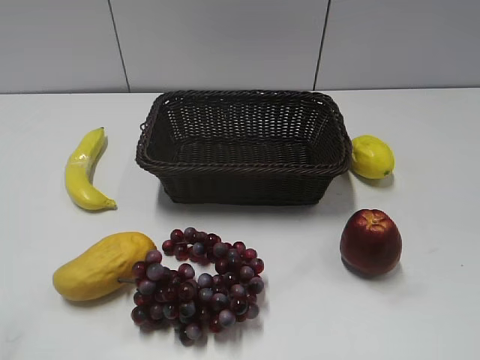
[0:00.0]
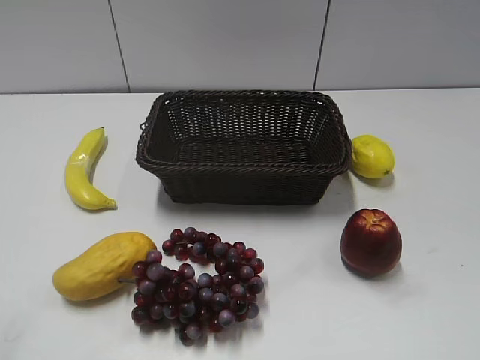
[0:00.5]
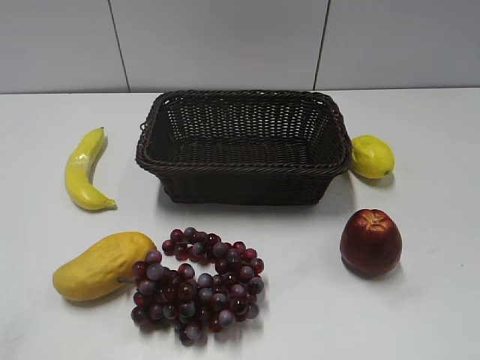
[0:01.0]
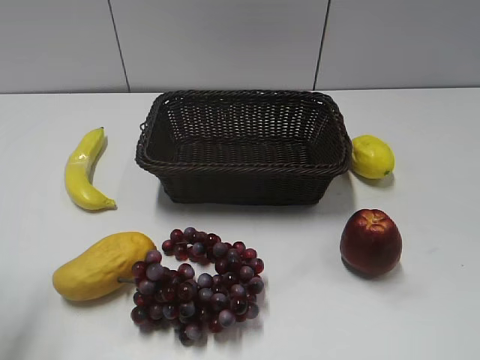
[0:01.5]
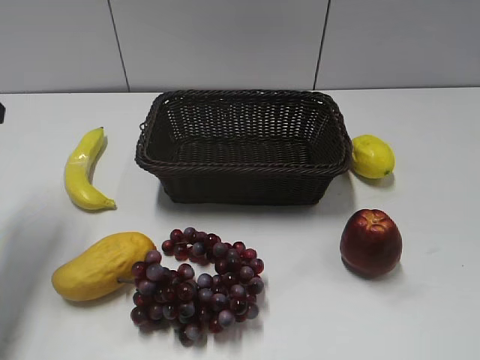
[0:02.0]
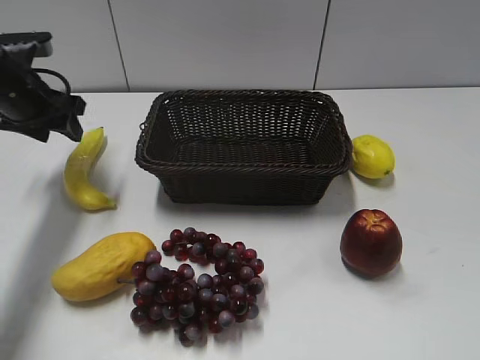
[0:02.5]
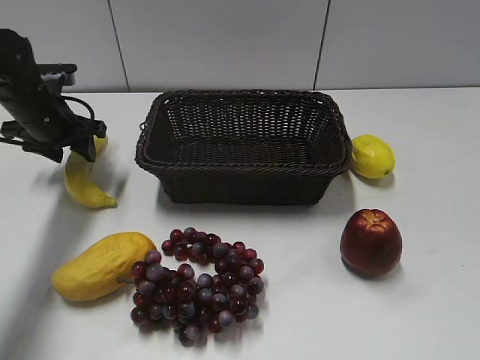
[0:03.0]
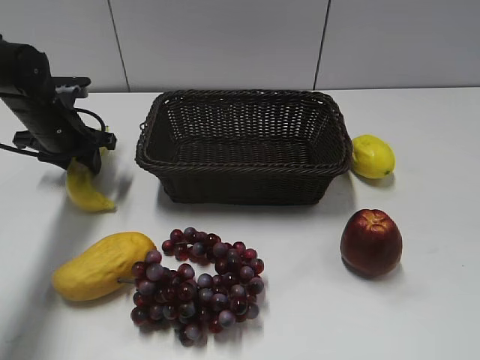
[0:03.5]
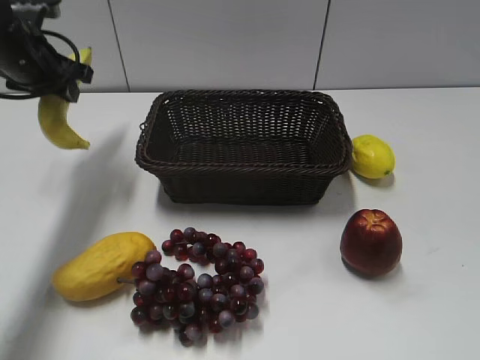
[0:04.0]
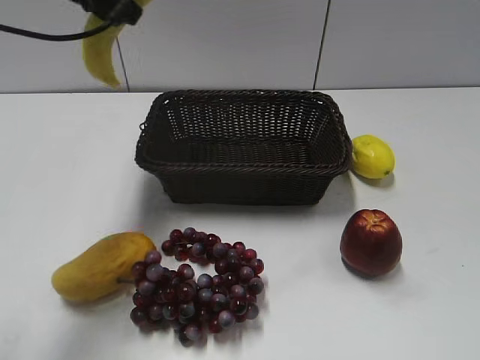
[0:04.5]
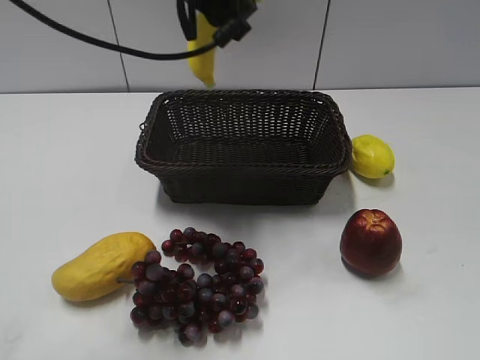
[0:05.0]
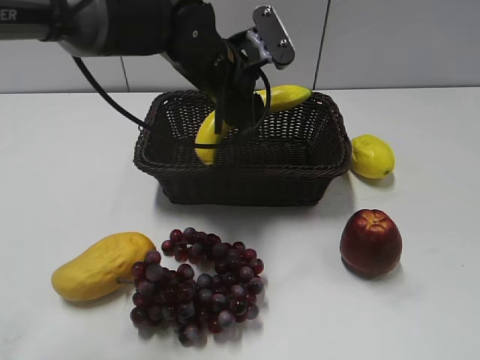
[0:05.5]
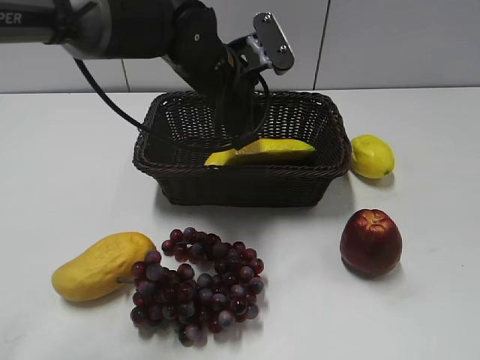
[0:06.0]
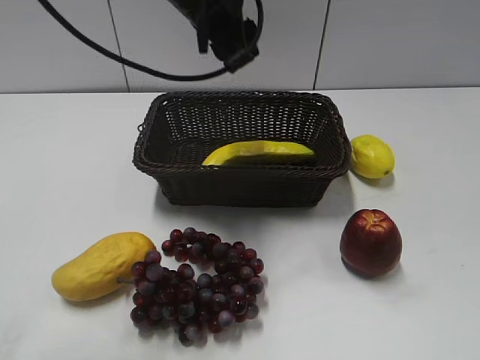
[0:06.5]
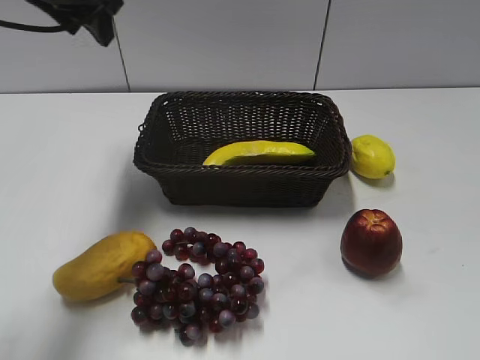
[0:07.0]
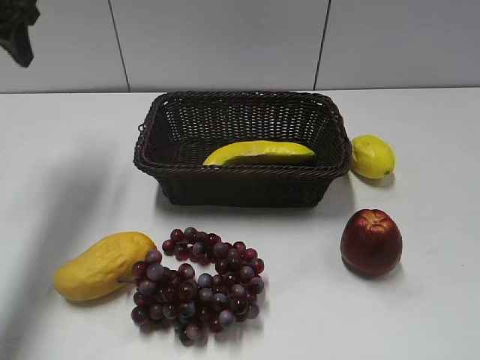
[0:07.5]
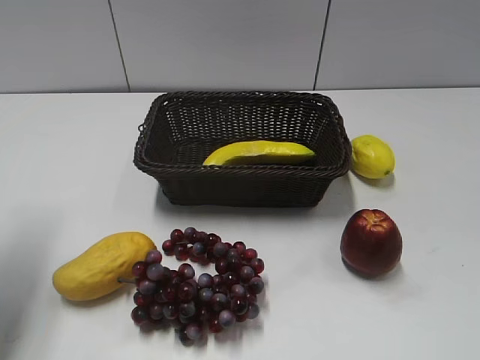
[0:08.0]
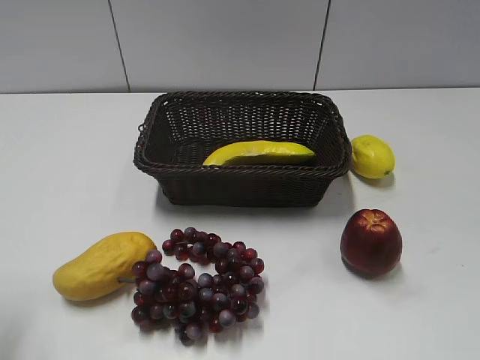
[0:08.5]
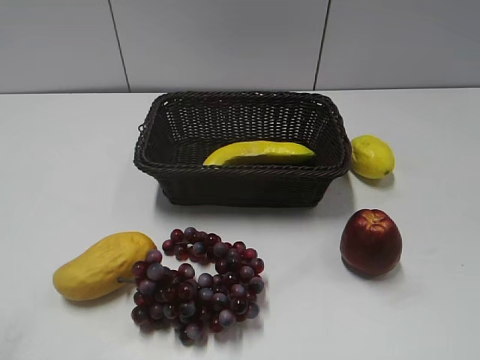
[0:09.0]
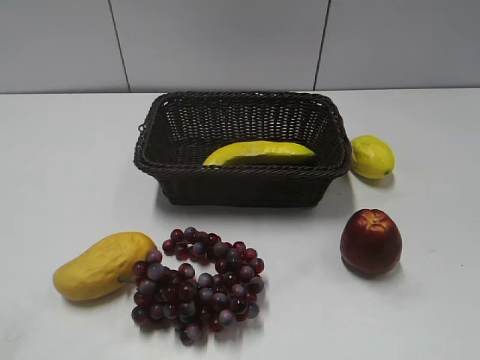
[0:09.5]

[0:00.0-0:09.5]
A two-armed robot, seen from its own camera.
Step, 0:02.0 to 0:03.5: Grasp the banana with left gripper.
Step, 0:04.0 to 0:06.0: Place the banana in the basket with left gripper.
0:02.0 to 0:04.0: The left gripper shifts approximately 10 cm forward and to the right, moves roughly 15 cm downward and comes back, and closes.
0:04.0 to 0:05.5: The left gripper shifts some 25 cm to the right.
0:05.5 to 0:07.5: The left gripper travels to the left and upward by some 30 cm, and opens its fingers.
0:07.5 to 0:09.5: The left gripper shifts some 40 cm backward.

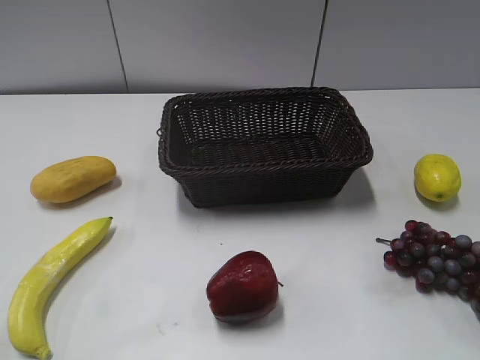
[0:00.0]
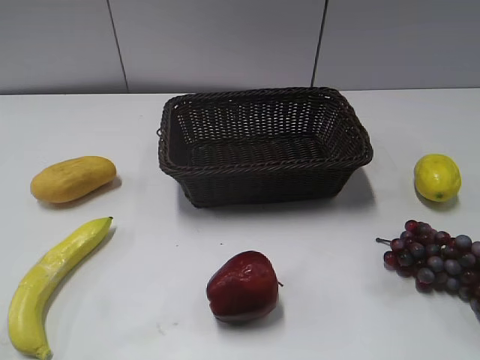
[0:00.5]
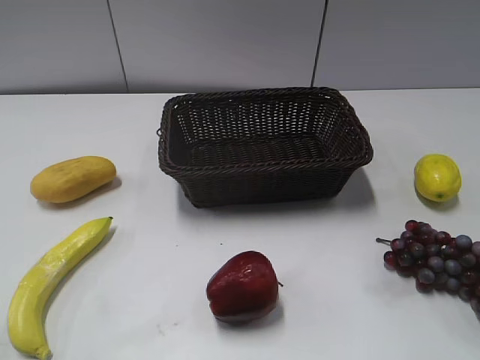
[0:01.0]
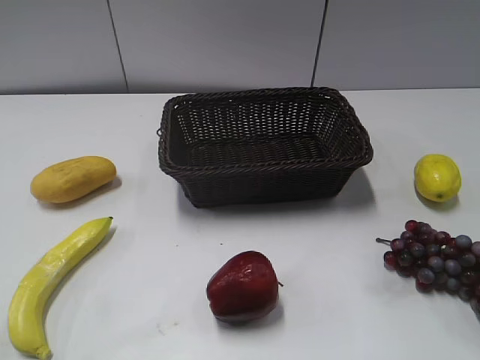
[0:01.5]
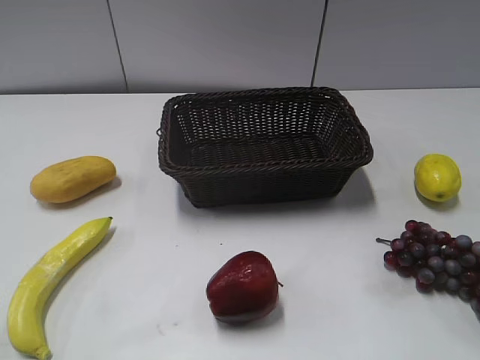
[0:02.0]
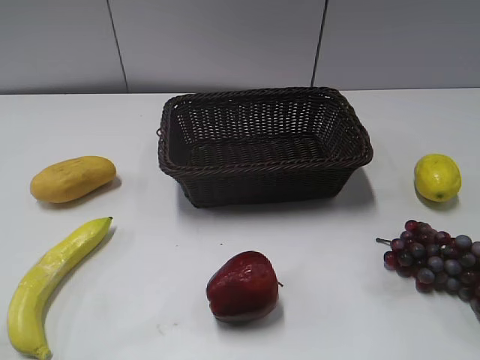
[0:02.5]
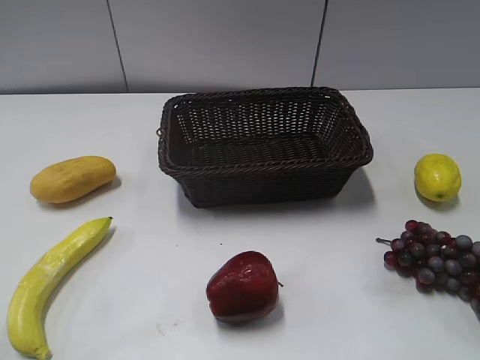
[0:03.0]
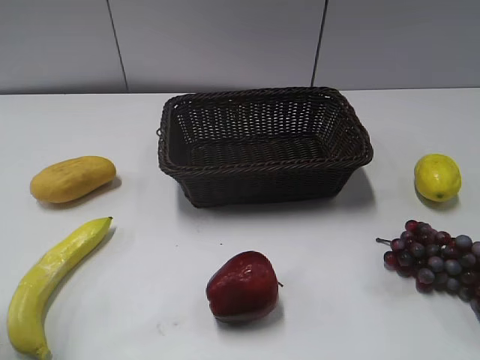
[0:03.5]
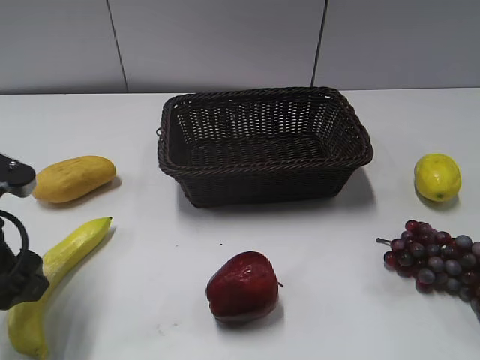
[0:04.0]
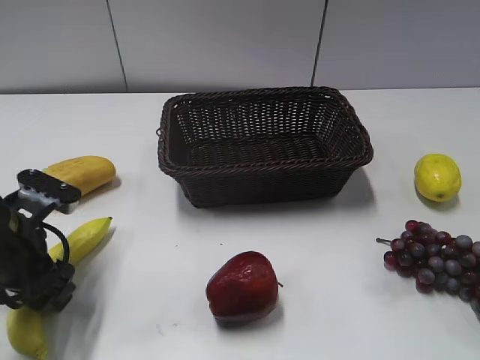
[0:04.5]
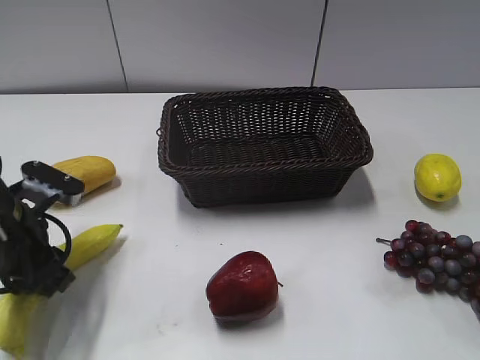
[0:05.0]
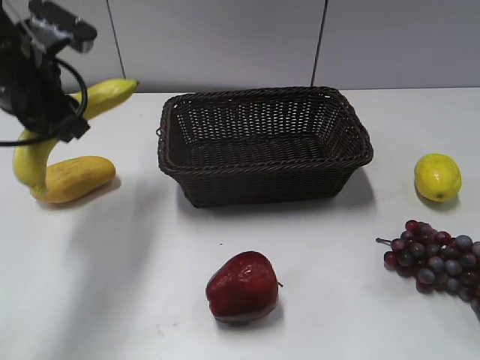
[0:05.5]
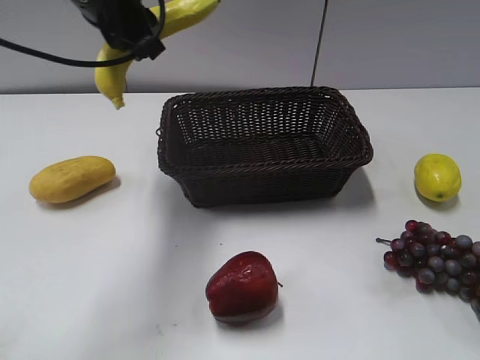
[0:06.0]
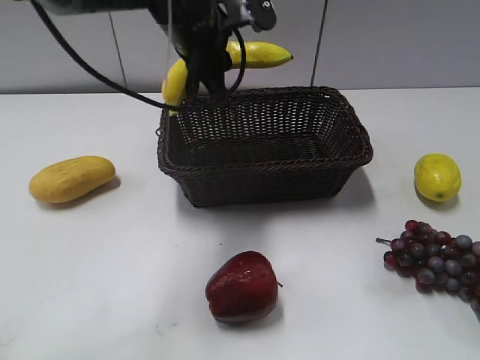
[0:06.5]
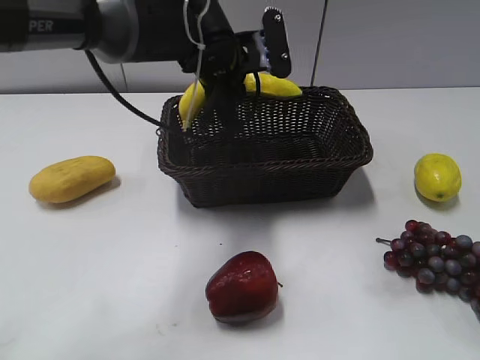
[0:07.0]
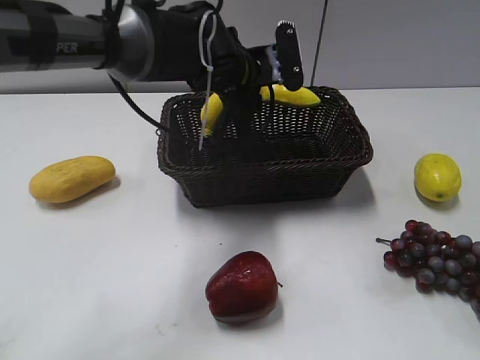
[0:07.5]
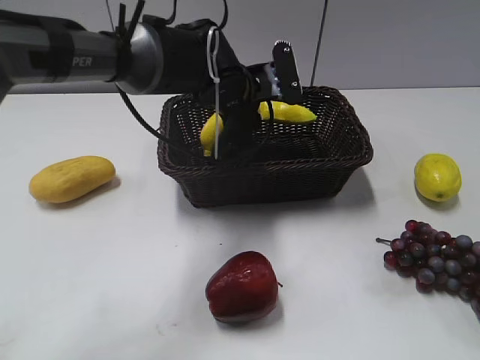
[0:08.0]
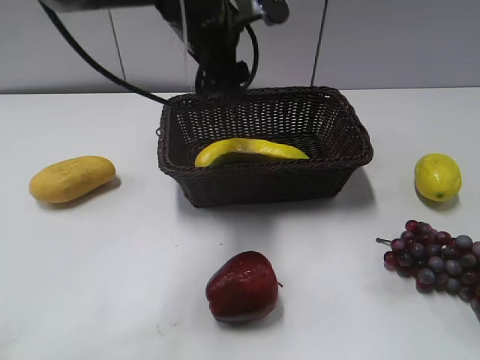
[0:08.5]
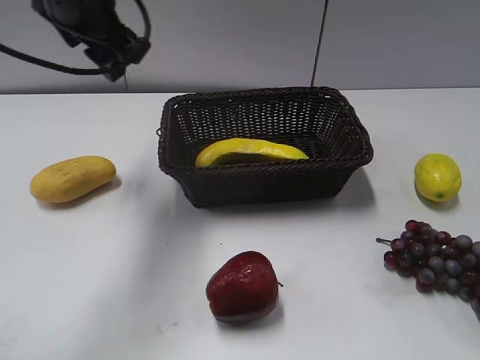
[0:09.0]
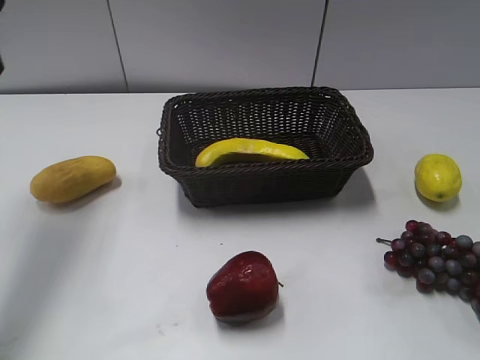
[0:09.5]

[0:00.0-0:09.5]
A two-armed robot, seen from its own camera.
Step, 0:04.0 to 0:05.0: Grasp the banana with left gripper.
Step, 0:05.5 to 0:08.0: Place the banana in the basket with left gripper.
0:02.0 to 0:04.0: The left gripper is displaced forward, downward and to the right by about 25 cm.
0:04.0 to 0:05.5: The left gripper moves forward and upward, roughly 15 cm, and closes its fingers.
0:05.5 to 0:07.5: The left gripper shifts approximately 20 cm to the right and forward.
0:07.5 to 0:09.5: The left gripper heads to the left and upward, covering about 30 cm, and opens.

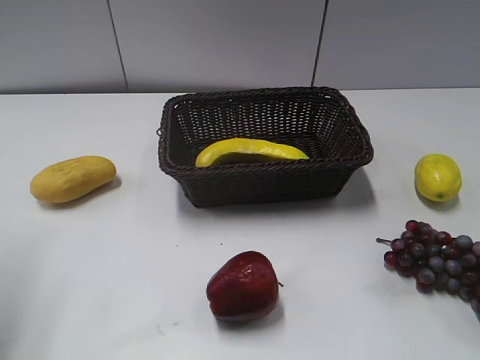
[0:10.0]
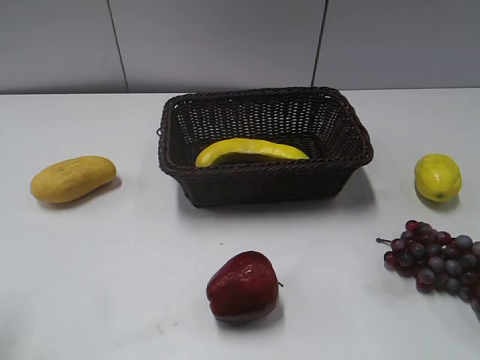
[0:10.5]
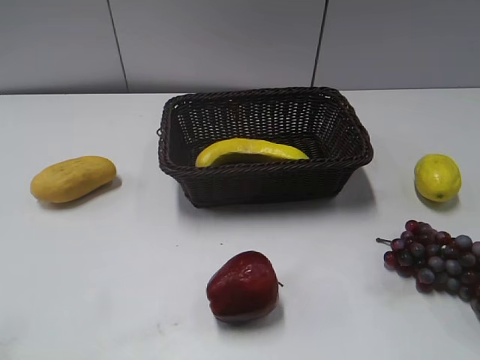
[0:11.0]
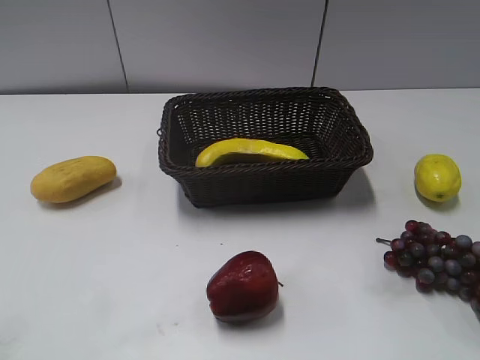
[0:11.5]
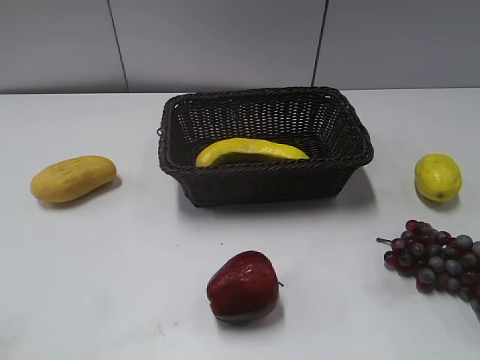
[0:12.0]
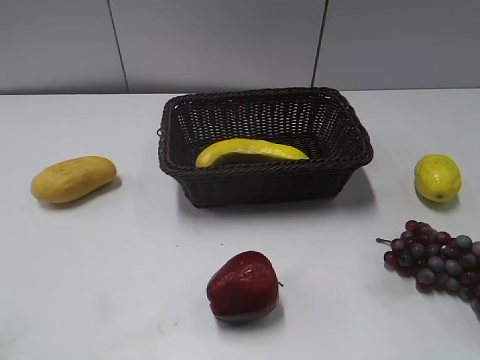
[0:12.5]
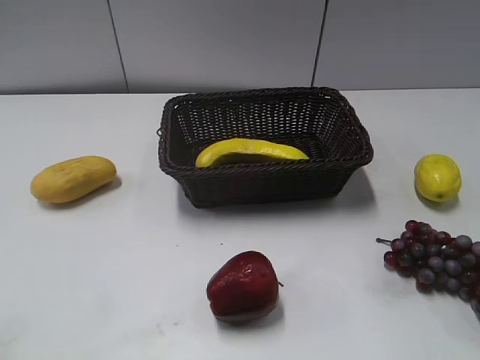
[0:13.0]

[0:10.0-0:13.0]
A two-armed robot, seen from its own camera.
0:10.0 to 0:11.5: The left gripper heads backward, covering about 20 cm.

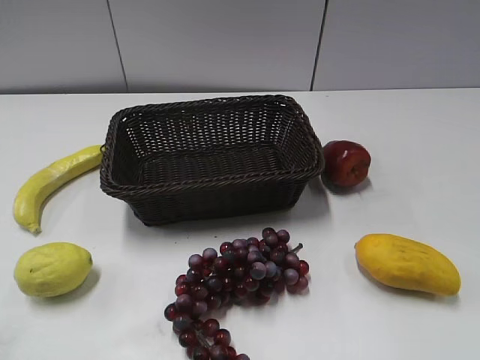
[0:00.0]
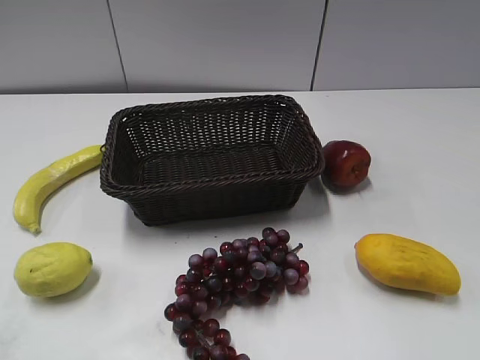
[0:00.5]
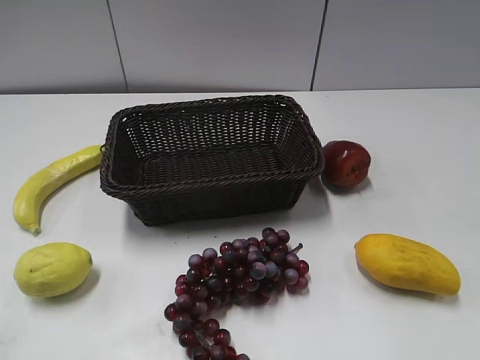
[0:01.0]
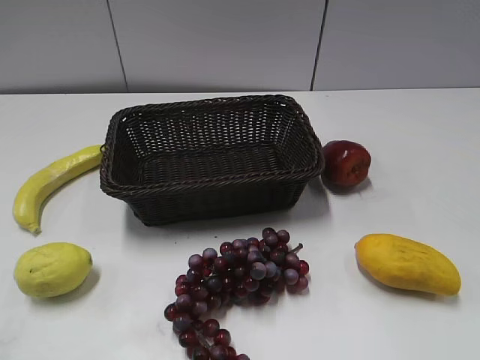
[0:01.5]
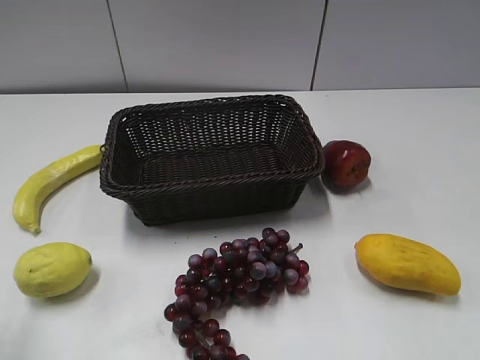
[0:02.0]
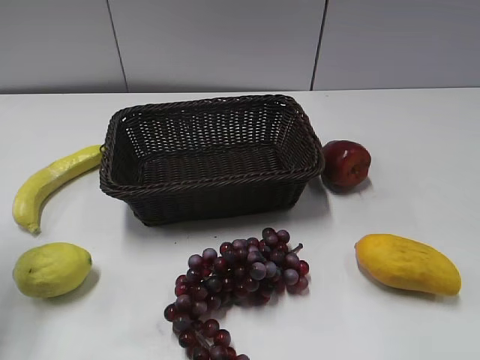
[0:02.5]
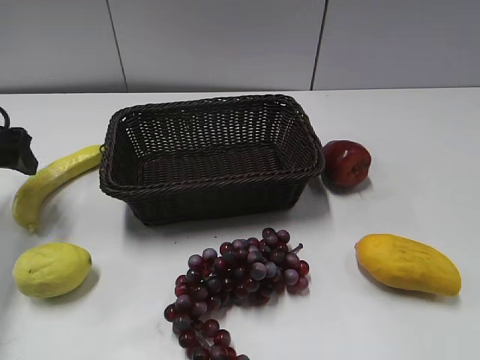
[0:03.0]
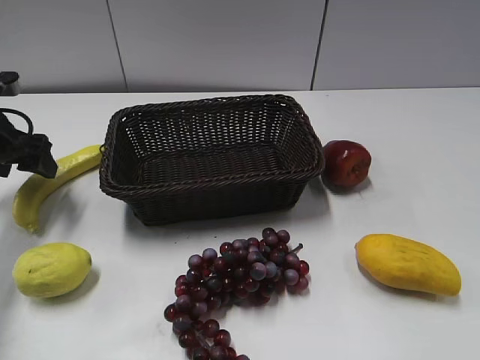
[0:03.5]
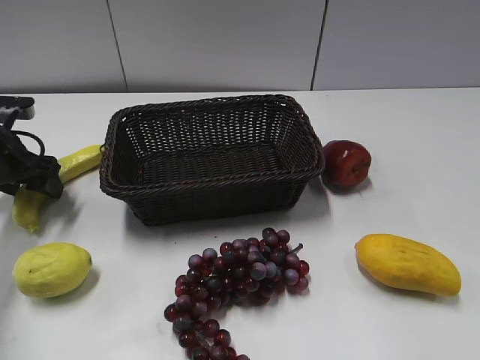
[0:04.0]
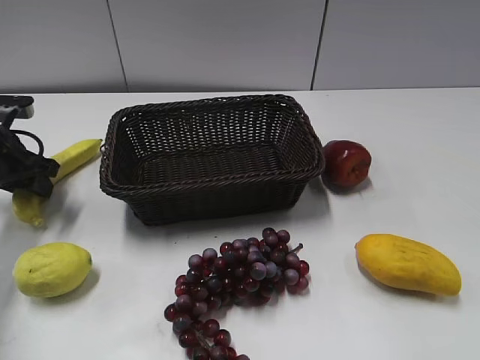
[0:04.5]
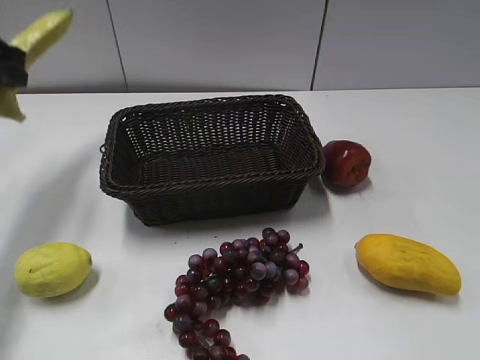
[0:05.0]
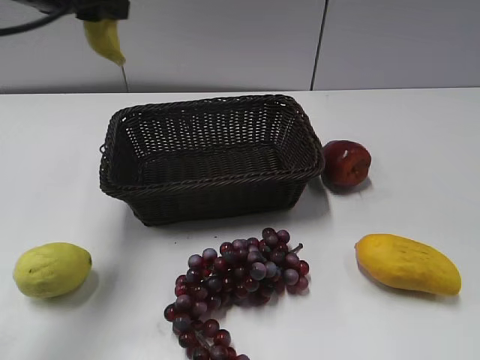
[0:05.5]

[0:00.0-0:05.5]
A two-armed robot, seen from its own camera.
Step, 0:03.0 to 0:04.5: Grasp the banana with left gripper.
0:02.0 to 0:03.5: The left gripper travels forward and downward by some 30 cm.
0:03.5 to 0:05.5: The left gripper travels upward and to the right by some 20 cm, and closes its fingers.
